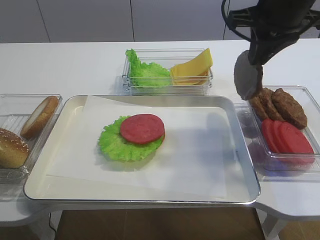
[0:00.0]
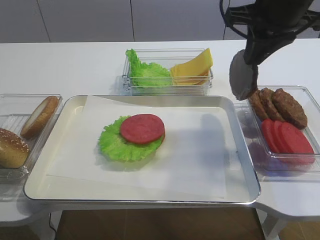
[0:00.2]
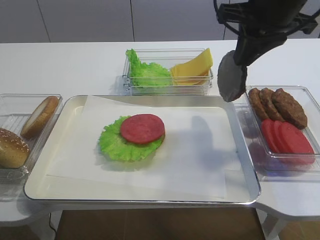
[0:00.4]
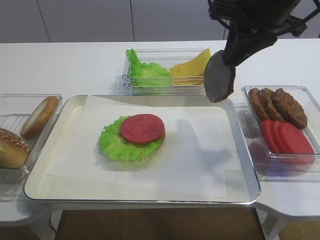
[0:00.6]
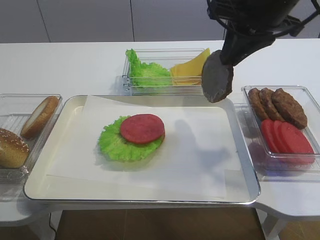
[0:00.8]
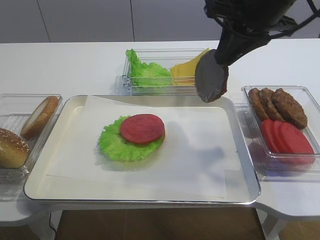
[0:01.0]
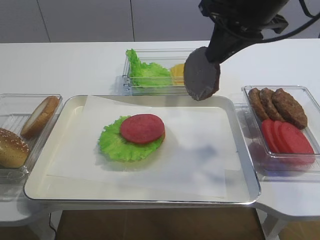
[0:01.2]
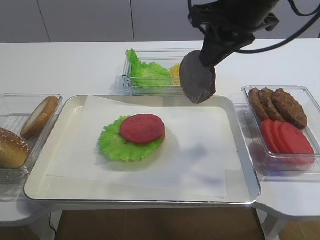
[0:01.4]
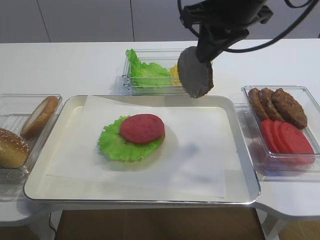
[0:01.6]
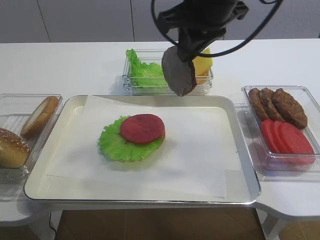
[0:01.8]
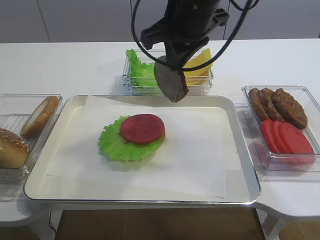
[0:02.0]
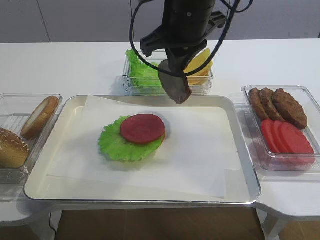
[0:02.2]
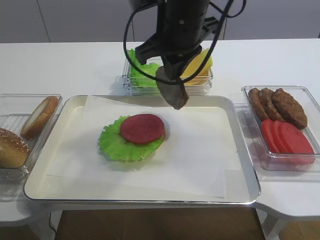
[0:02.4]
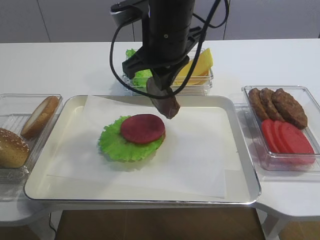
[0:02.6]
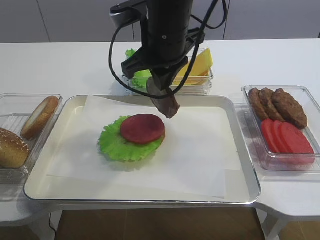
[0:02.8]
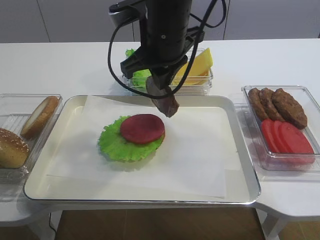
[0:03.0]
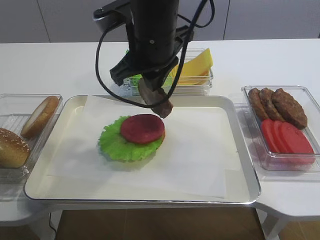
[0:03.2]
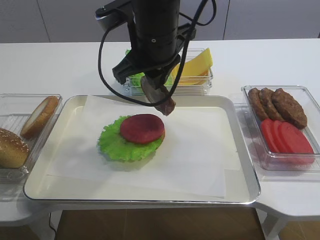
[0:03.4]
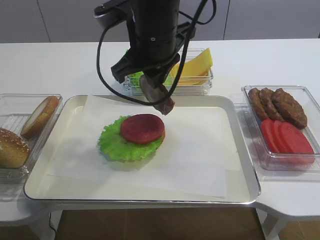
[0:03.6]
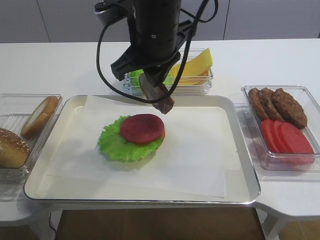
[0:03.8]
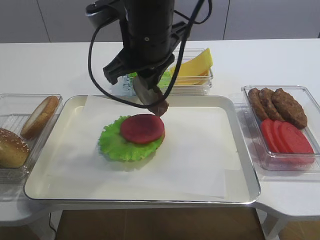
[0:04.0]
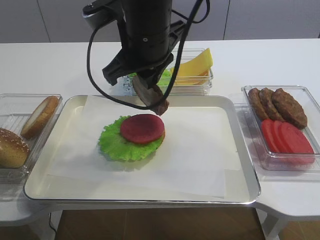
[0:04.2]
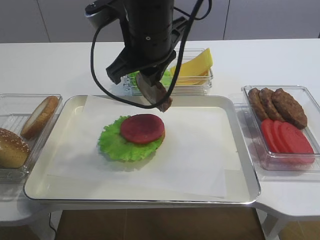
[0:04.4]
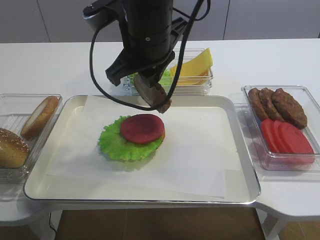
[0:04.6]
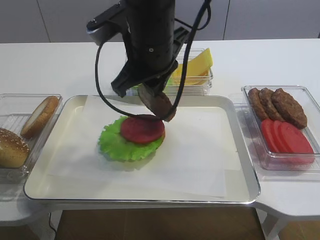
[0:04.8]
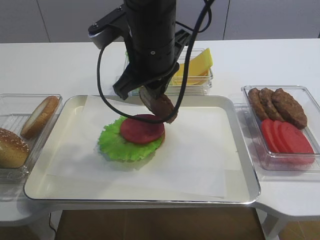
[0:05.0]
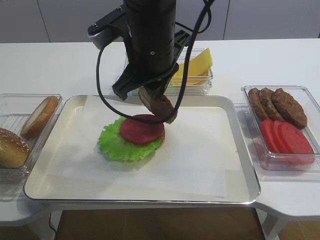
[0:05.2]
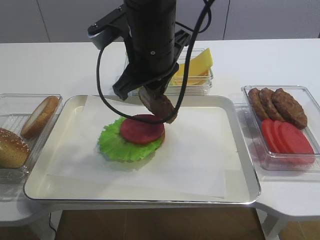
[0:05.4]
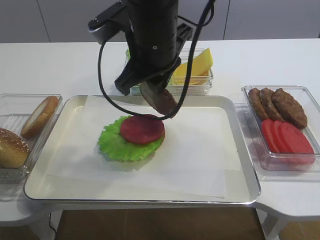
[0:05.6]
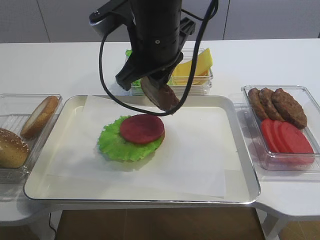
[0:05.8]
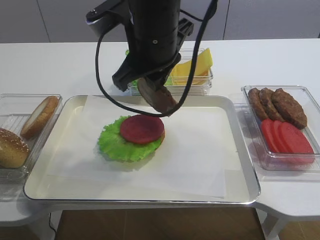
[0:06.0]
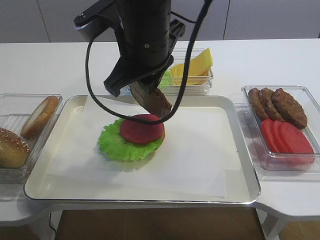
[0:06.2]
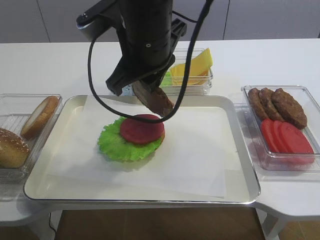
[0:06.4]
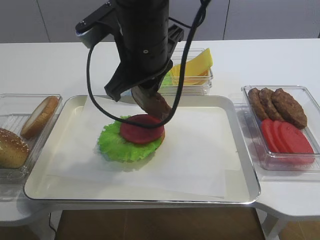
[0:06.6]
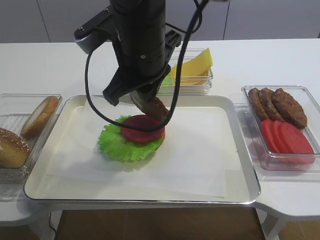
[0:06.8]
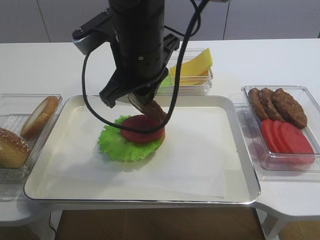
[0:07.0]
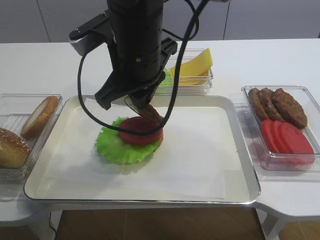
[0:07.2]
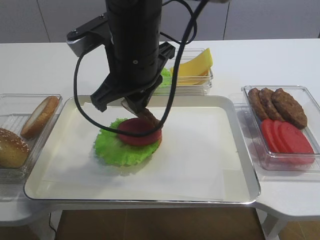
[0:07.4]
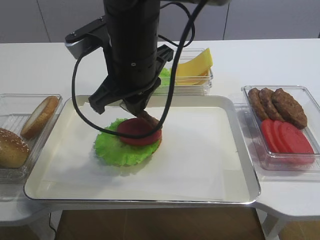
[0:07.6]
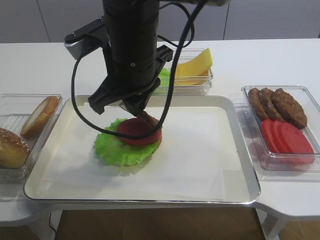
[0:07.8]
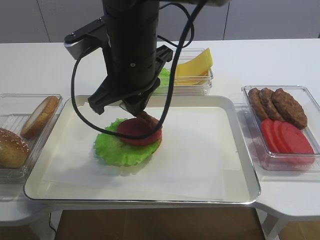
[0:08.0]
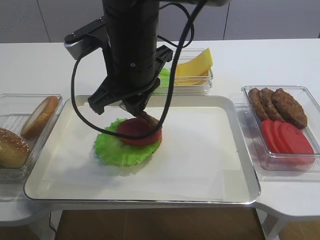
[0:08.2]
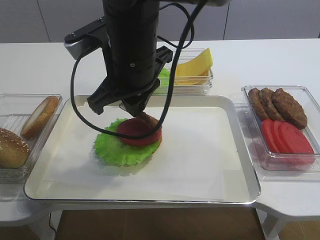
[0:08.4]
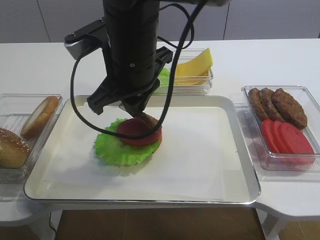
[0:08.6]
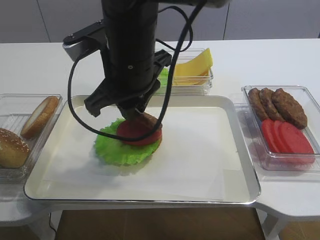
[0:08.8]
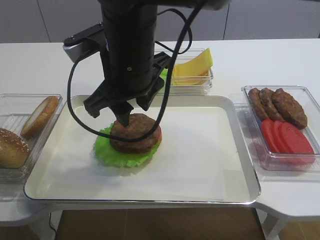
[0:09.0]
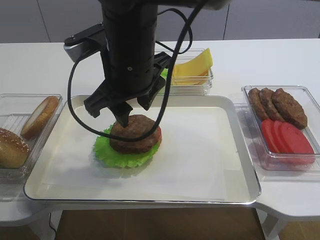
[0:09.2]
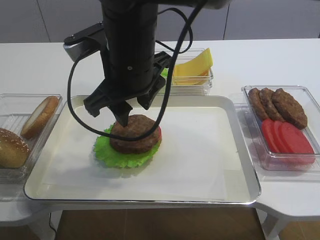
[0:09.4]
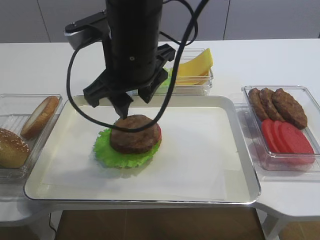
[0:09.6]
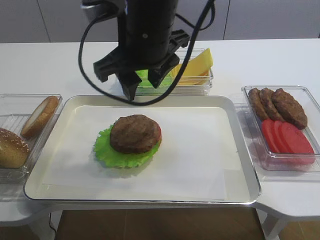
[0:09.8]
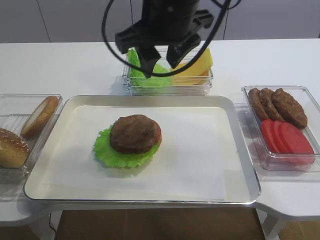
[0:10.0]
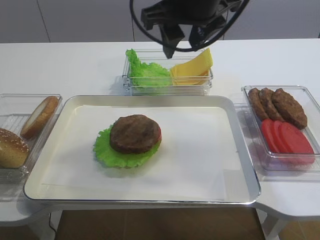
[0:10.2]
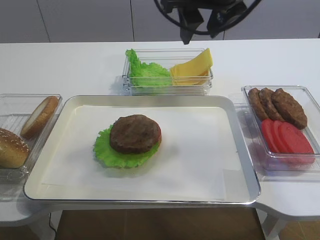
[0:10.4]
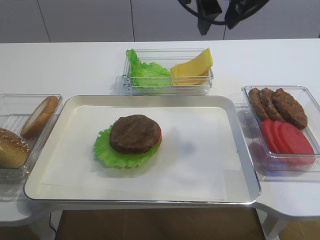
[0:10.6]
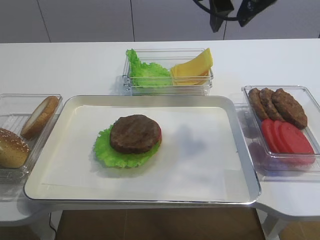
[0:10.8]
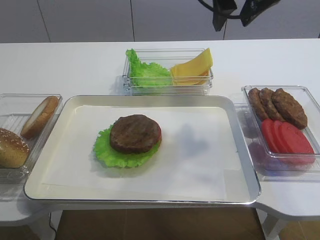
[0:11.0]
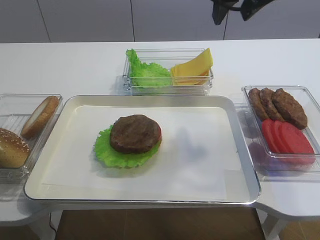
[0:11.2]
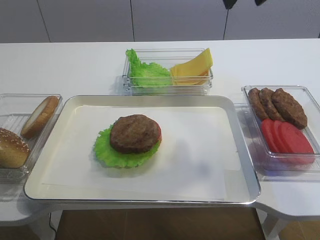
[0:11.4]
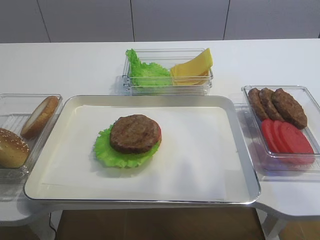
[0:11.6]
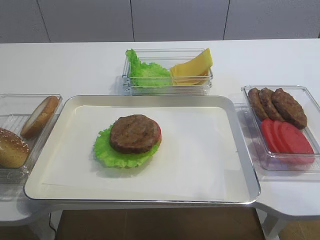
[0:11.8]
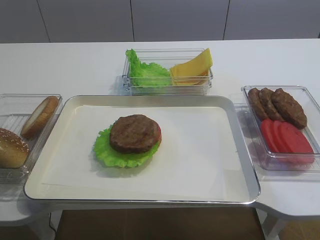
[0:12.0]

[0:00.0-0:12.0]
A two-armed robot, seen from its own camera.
Step, 0:00.0 to 0:09.2: Place the cutlet on the tomato slice with the right gripper.
0:00.0 to 0:01.6: The right gripper shifts approximately 5 cm to the left.
0:01.6 to 0:03.0: The right gripper shifts approximately 10 cm to the left.
0:03.0 to 0:06.0: The grippers make only small movements.
0:06.0 to 0:07.6: There are only small adjustments of the grippers.
0:07.6 to 0:09.0: The right gripper opens up.
0:09.0 to 0:10.4: The right gripper goes roughly 15 cm to the right and upward.
0:10.4 to 0:12.0: The right gripper goes approximately 20 cm backward, to the right and upward.

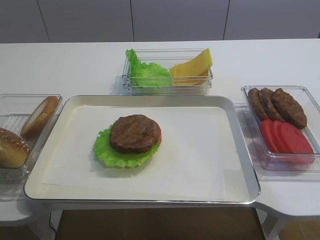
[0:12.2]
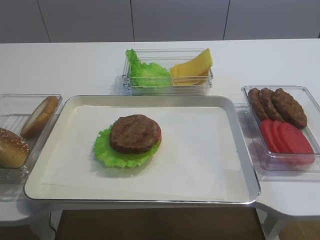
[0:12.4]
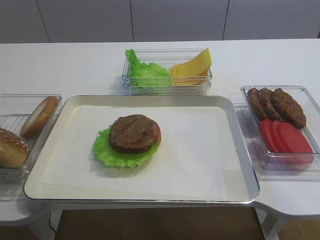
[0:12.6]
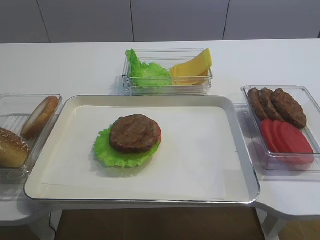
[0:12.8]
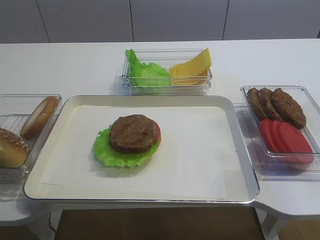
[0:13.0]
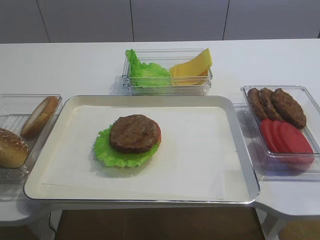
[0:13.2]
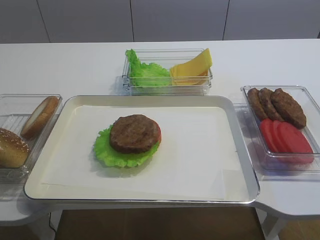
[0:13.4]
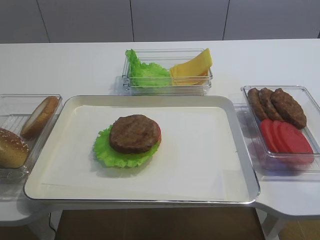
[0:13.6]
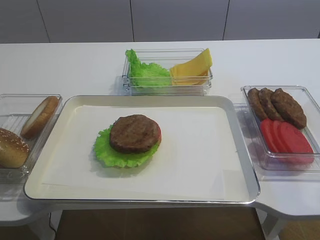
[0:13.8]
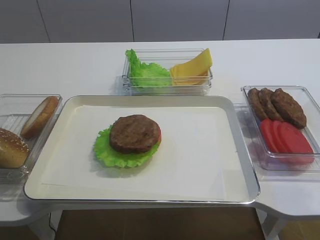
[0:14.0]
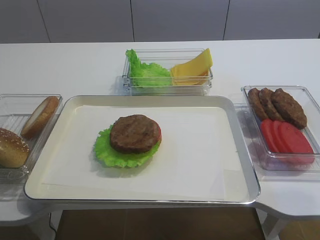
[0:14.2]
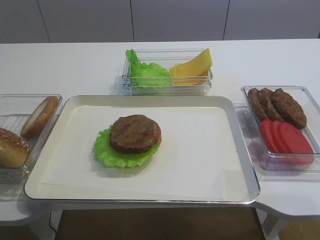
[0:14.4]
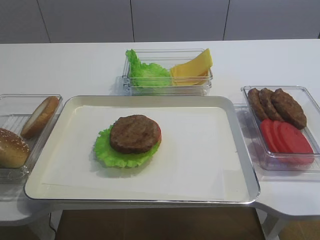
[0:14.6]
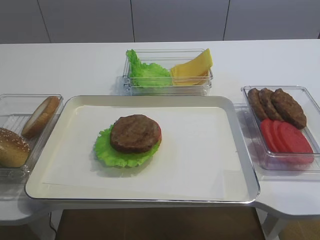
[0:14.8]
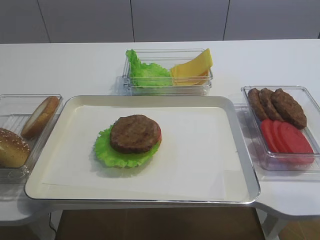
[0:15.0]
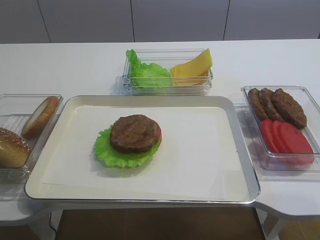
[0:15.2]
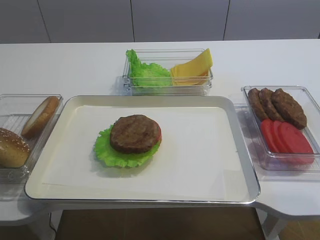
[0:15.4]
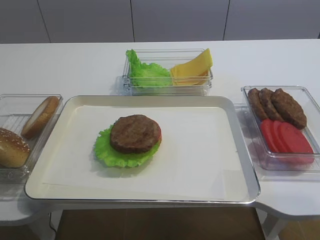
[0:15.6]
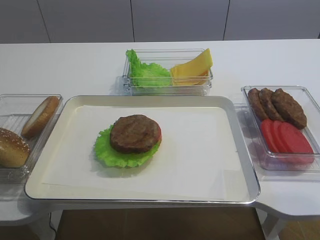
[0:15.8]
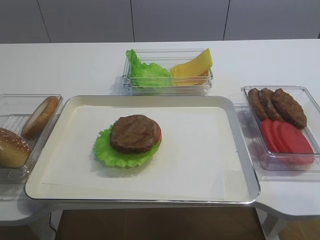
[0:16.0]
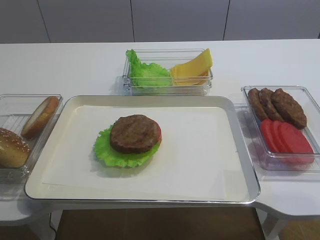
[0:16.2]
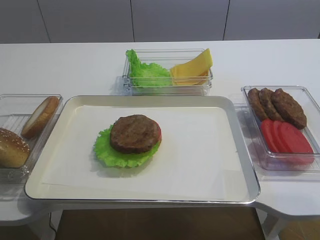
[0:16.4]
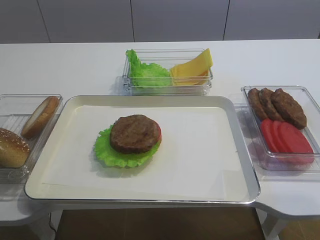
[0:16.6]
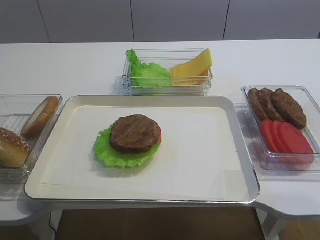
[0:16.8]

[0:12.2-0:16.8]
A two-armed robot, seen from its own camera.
0:12.2 to 0:13.8: The right gripper heads backward, downward and to the right, covering about 20 cm.
0:15.2 to 0:16.8: Both grippers stay about where they are.

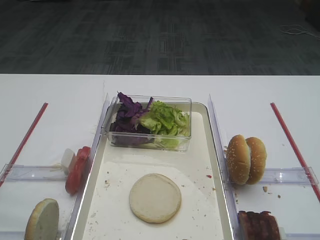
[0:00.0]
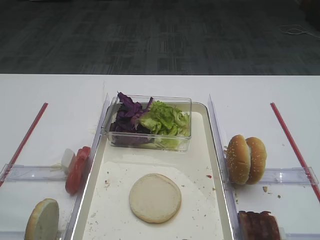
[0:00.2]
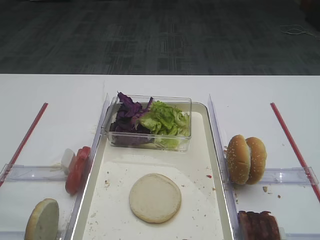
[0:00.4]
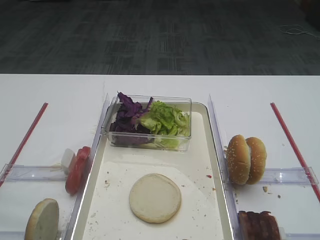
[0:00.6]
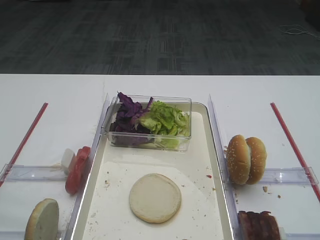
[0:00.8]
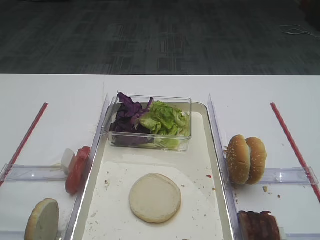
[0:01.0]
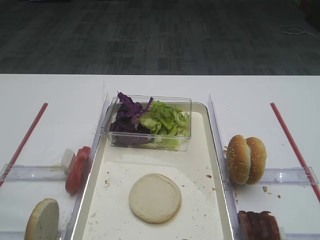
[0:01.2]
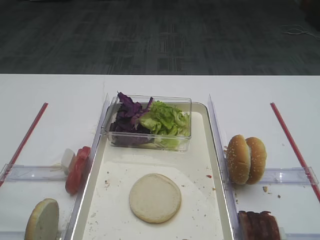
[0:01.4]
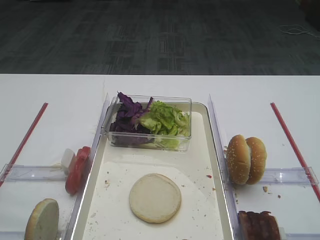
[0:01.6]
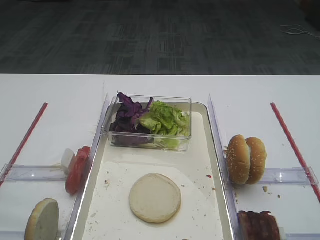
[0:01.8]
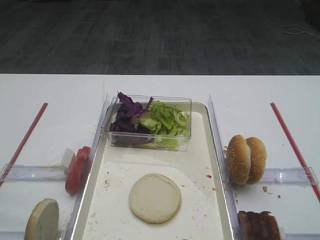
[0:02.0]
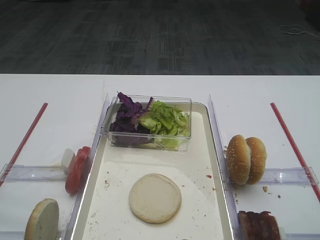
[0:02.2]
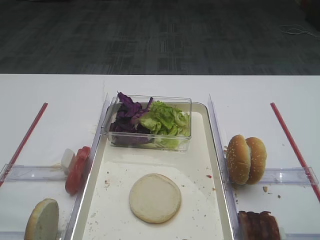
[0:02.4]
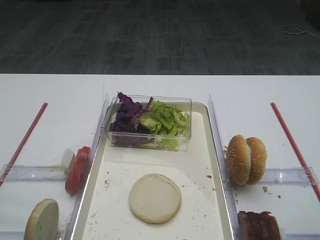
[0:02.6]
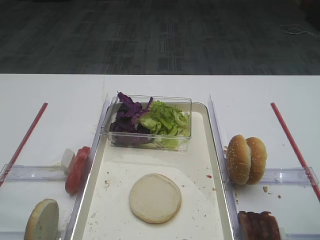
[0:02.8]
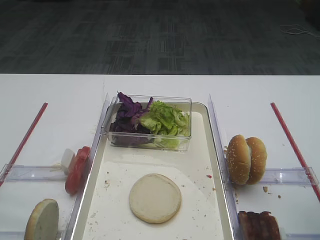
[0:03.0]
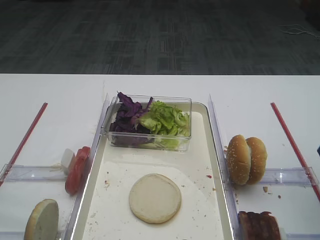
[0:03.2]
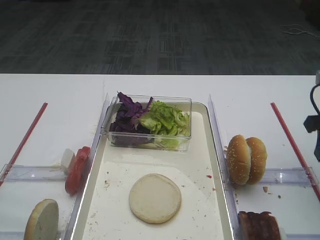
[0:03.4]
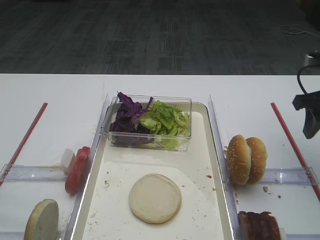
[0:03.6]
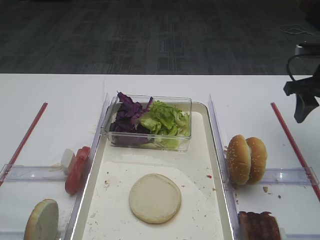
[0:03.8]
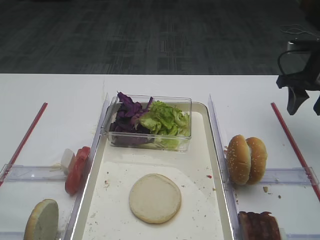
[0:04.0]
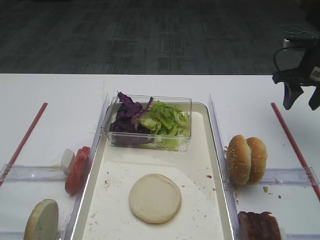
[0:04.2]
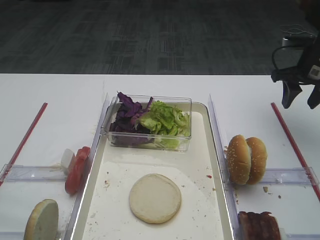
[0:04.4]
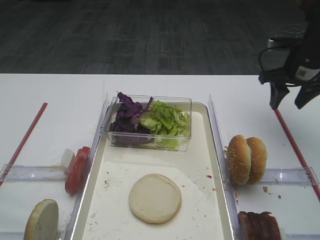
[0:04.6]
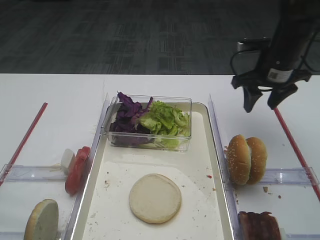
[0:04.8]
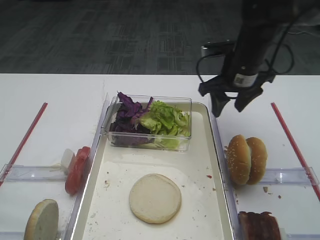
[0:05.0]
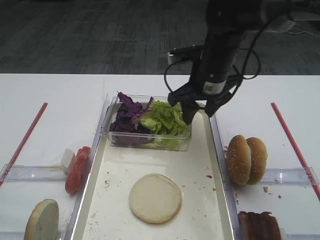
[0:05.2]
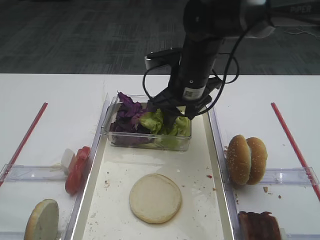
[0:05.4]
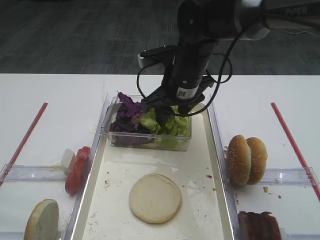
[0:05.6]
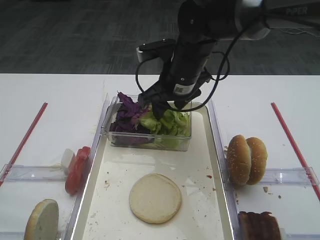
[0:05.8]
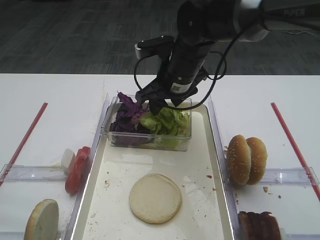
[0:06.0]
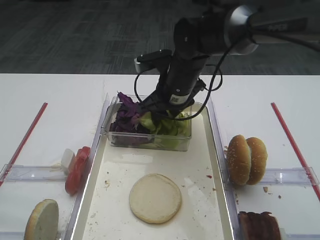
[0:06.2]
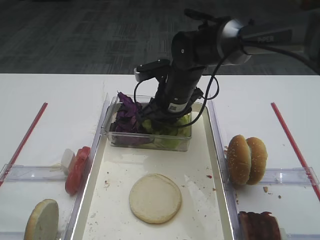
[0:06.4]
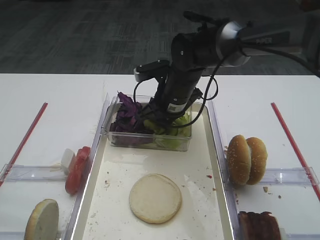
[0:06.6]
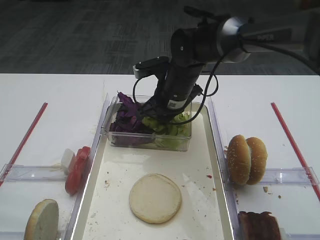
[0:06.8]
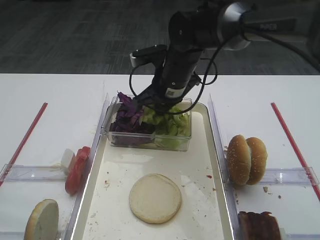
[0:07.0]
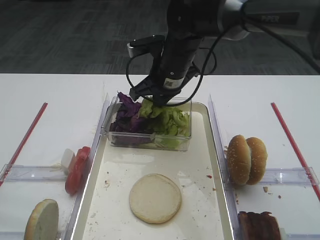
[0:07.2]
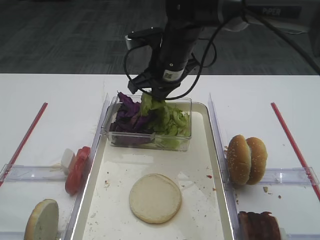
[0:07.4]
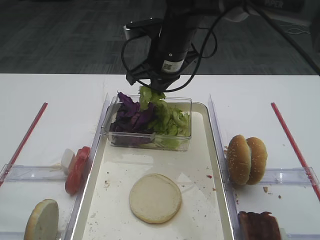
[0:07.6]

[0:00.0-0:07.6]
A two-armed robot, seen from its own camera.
0:01.6 to 0:03.0: The right gripper moves forward and downward, approximately 10 cm.
0:03.0 to 0:04.6: The right gripper goes some 25 cm forward.
0:04.6 to 0:06.0: The right gripper is displaced to the left by roughly 25 cm.
0:06.0 to 0:07.6: The right gripper closes.
